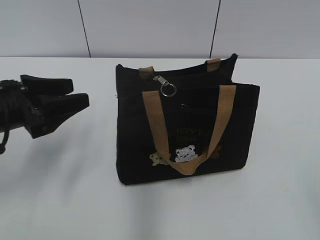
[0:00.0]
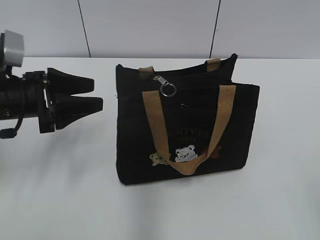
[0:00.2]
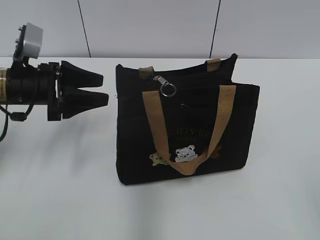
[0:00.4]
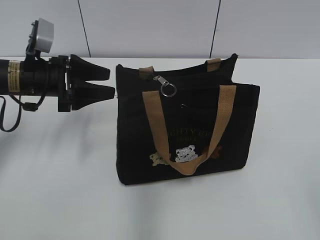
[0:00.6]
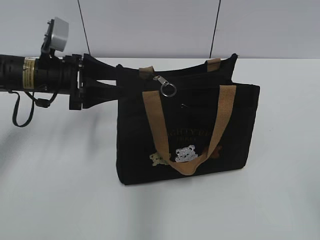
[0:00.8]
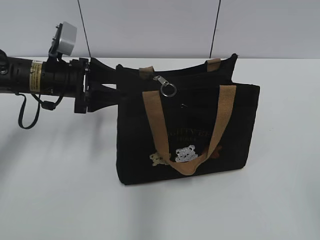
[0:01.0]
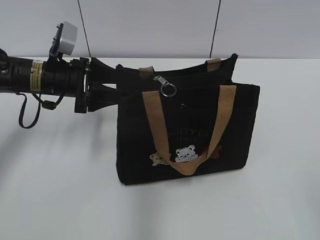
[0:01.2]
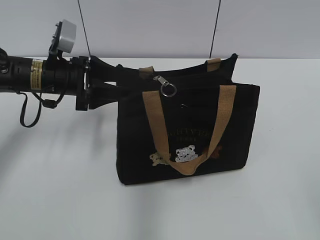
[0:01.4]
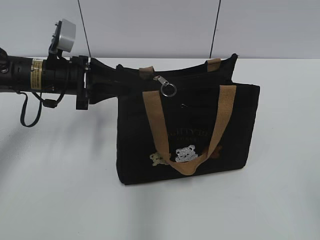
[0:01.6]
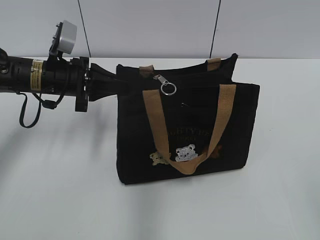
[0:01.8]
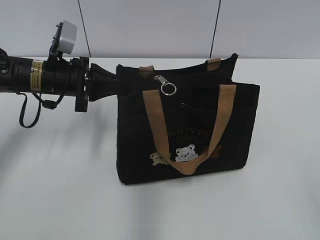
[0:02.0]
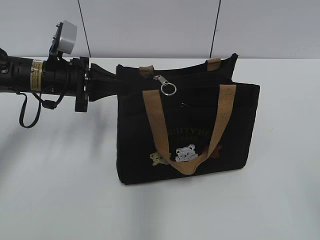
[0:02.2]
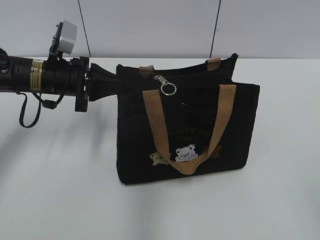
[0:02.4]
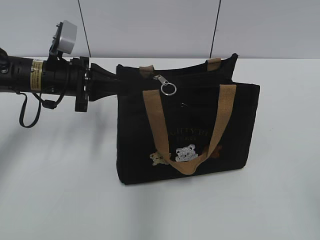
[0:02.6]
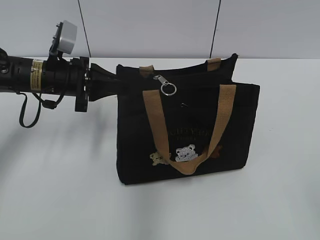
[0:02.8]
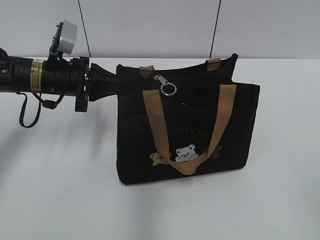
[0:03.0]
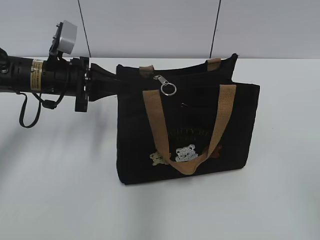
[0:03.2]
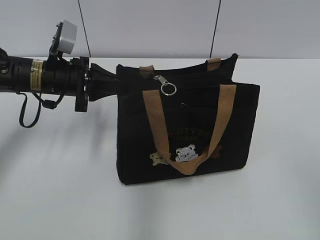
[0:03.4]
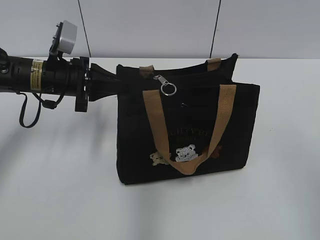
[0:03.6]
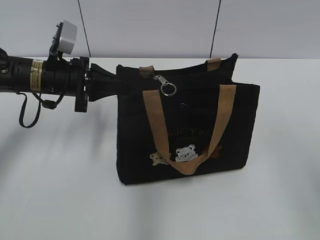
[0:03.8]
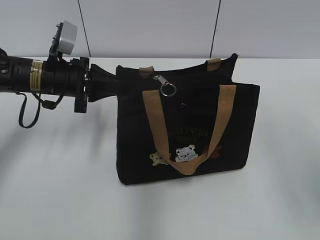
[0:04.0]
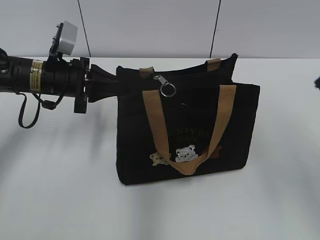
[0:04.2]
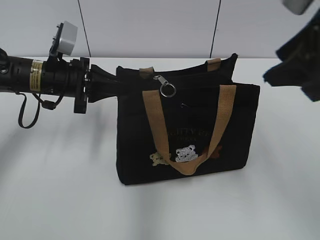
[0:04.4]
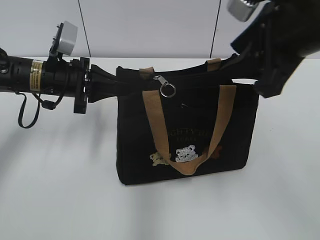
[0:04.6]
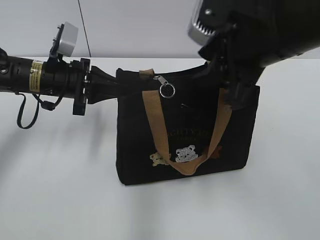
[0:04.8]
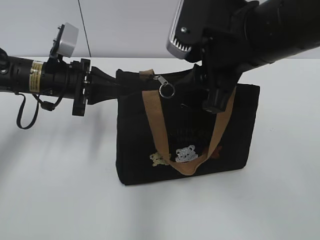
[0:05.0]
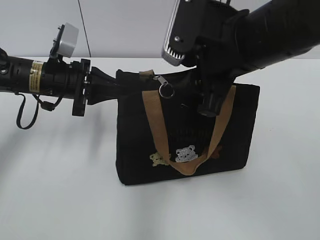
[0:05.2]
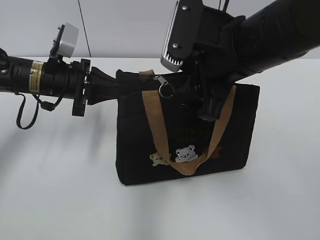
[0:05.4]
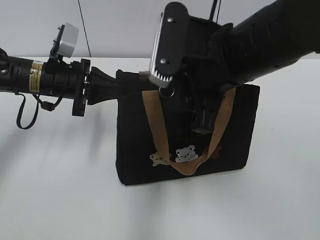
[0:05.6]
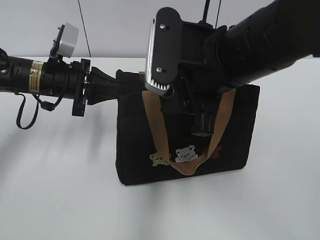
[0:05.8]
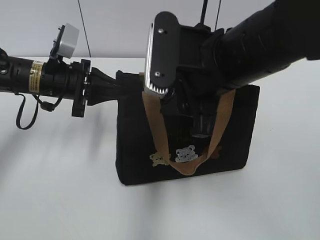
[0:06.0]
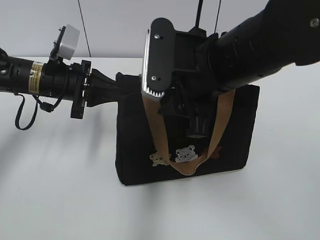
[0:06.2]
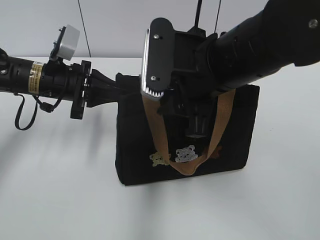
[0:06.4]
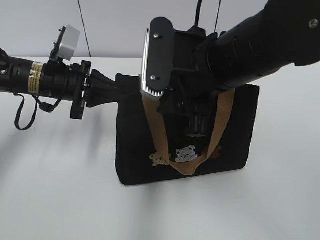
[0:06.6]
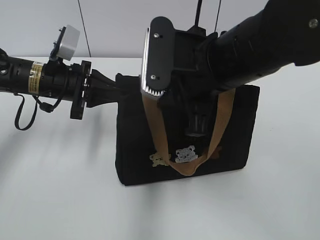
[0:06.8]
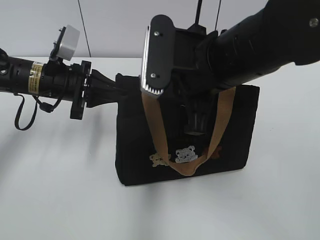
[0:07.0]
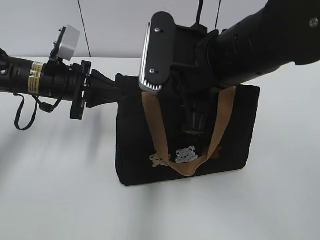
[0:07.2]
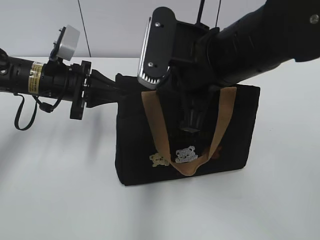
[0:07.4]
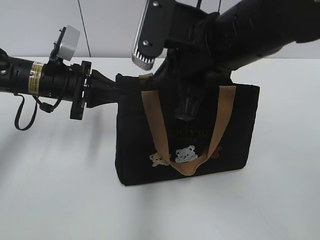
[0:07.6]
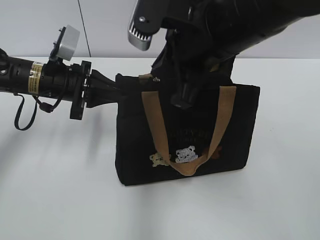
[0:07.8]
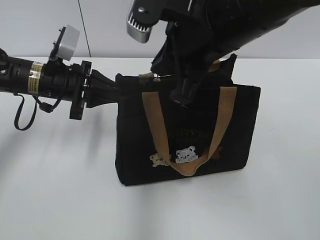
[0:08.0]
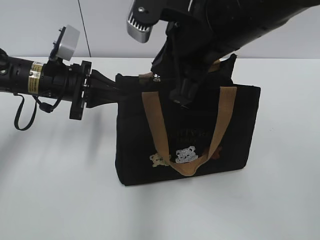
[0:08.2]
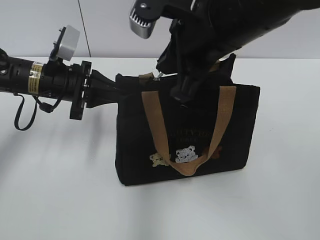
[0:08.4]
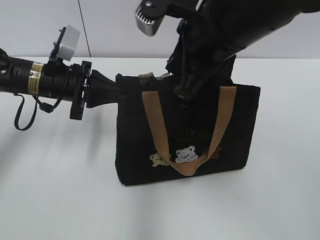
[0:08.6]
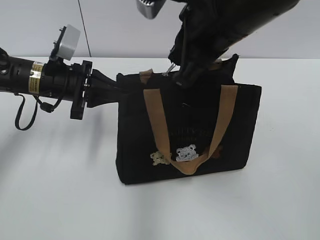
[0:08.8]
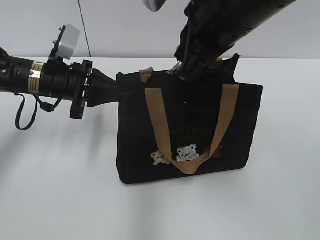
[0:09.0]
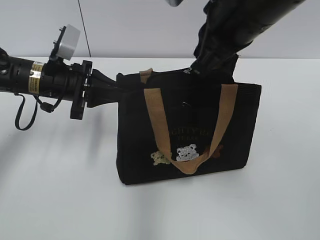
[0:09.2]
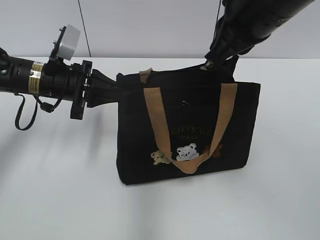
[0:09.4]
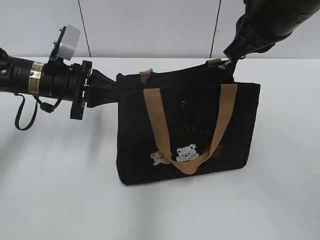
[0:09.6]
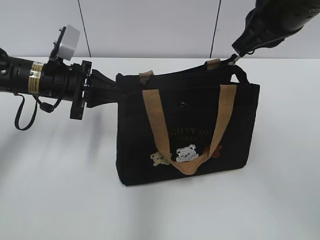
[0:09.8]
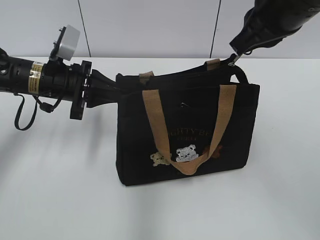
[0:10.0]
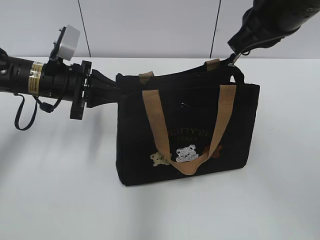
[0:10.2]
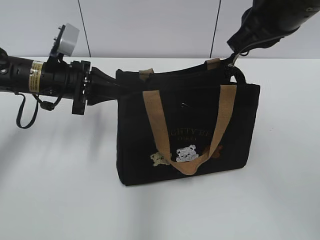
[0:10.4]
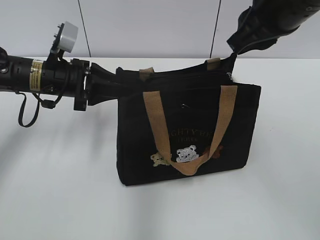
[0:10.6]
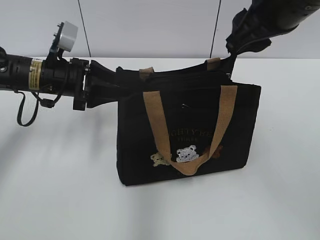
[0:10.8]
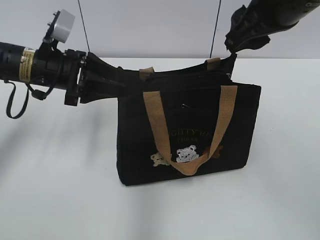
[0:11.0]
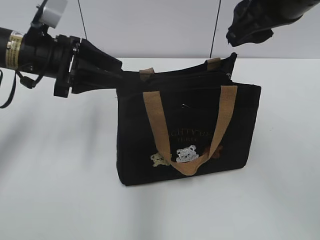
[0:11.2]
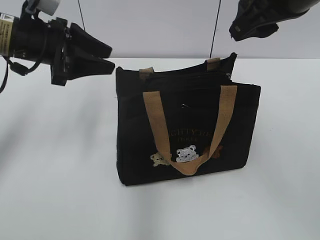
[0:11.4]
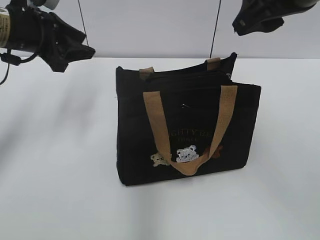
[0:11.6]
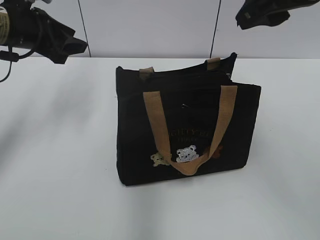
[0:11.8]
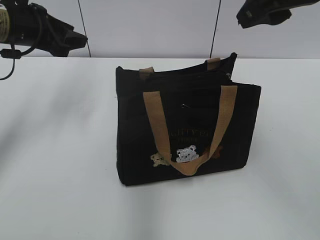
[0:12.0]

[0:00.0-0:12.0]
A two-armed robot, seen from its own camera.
Step, 0.0 to 10.4 s: Pull open the zipper with your right hand.
Step, 10.6 to 11.4 s: Hold the bag with your left hand.
0.0 to 1.6 s: The left gripper moves forward and to the right, about 15 cm, and closes.
1.6 to 3.0 s: The left gripper closes.
3.0 to 4.4 s: The right gripper goes some 20 cm forward.
4.4 to 6.0 s: The right gripper moves to the left and downward, roughly 15 cm.
6.0 to 7.6 s: The right gripper closes its fingers.
9.0 to 10.4 s: The right gripper heads to the right, covering some 5 cm.
10.4 to 12.0 s: The right gripper opens up. Meanwhile the left gripper travels upward by roughly 10 cm, and opens its fingers.

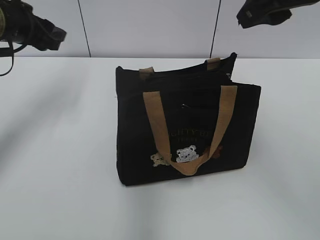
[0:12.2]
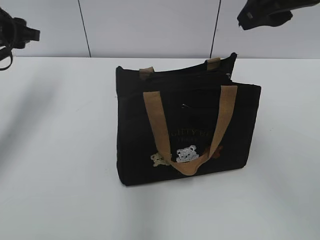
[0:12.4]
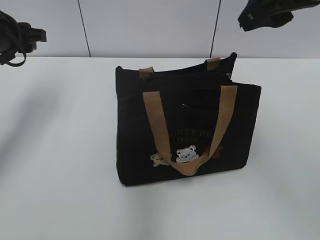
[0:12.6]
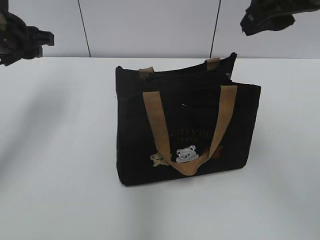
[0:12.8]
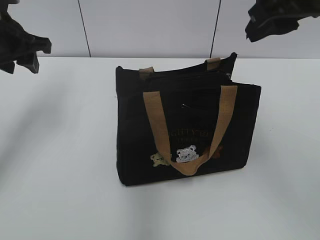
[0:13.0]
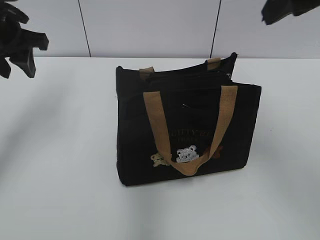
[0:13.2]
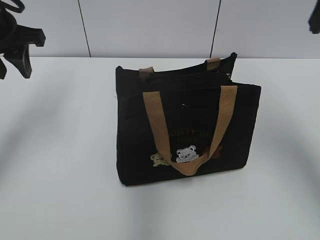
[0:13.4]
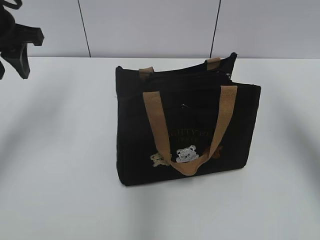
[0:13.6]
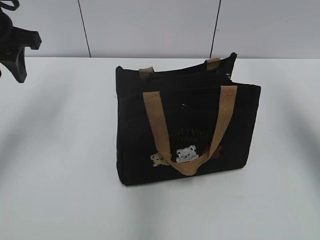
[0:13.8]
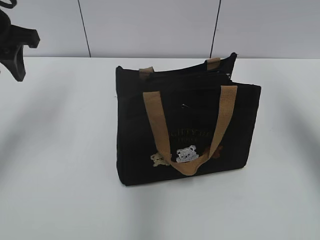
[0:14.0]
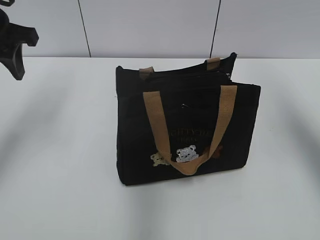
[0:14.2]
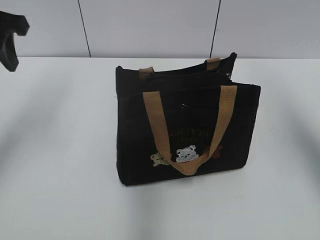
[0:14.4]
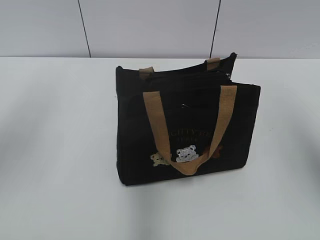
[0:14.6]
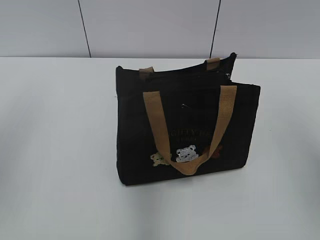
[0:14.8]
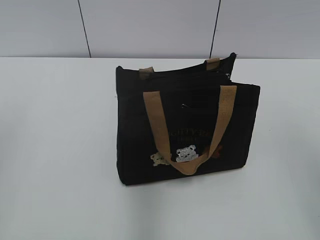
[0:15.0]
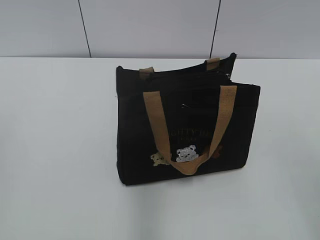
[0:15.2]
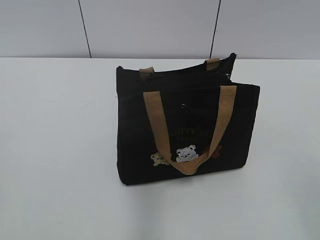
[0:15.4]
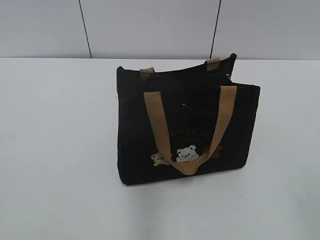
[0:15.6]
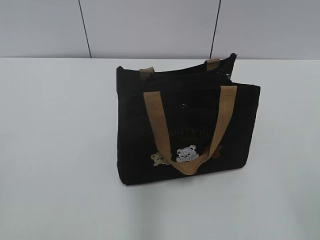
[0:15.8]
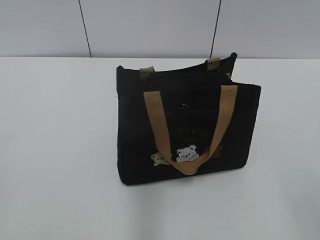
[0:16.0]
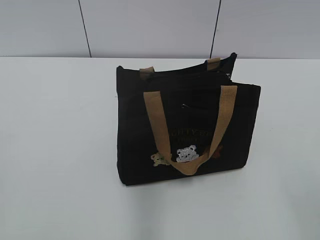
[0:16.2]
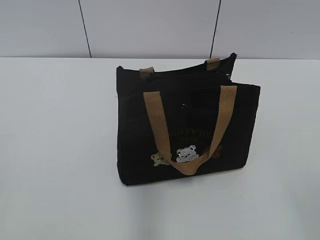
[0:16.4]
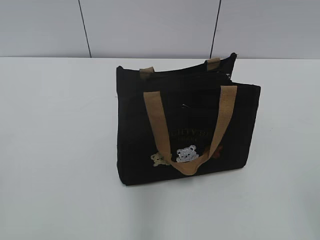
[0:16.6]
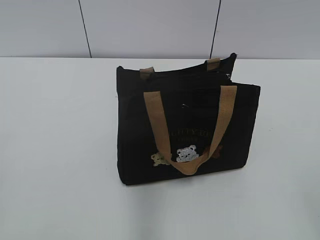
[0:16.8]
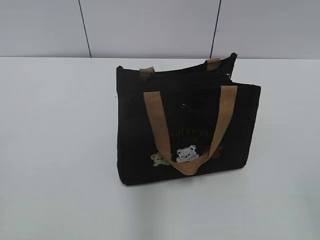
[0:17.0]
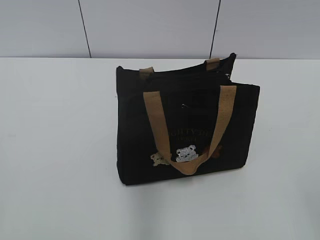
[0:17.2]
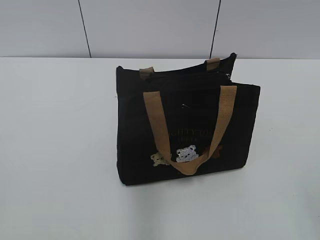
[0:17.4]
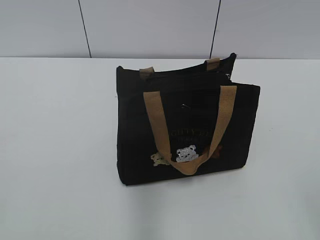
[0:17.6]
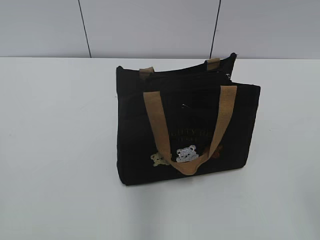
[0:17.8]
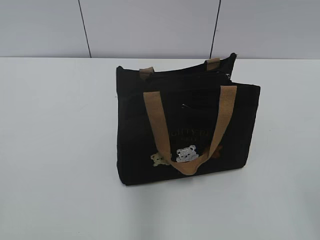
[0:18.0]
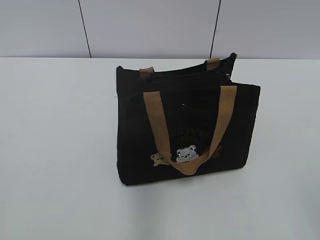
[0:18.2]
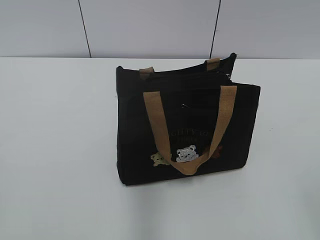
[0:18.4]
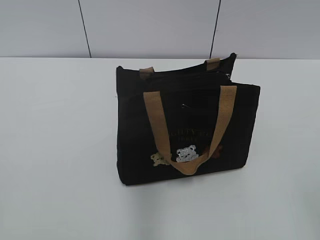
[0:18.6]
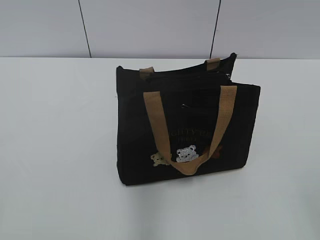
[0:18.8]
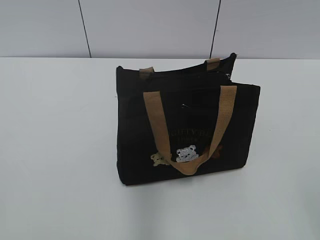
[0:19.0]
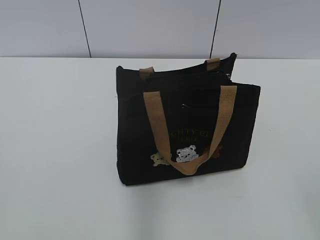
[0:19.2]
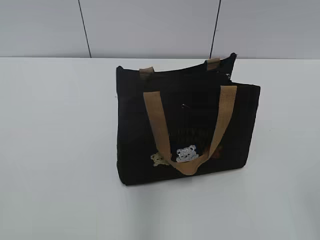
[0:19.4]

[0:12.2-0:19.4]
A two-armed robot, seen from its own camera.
12.2 to 13.6 s: The right gripper goes some 10 cm to the right, while the left gripper ends up about 5 cm from where it was.
13.6 to 15.0 s: The grippers both shift backward by roughly 20 cm.
18.0 to 19.4 s: The two grippers keep their place.

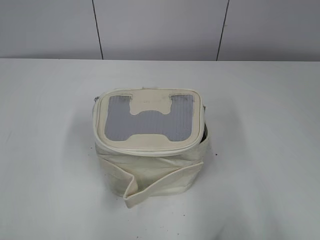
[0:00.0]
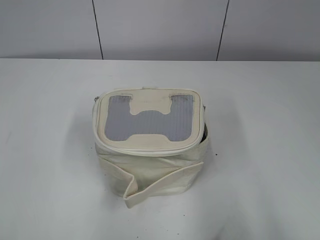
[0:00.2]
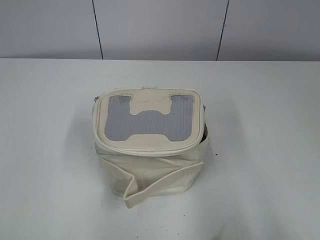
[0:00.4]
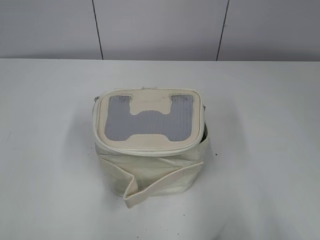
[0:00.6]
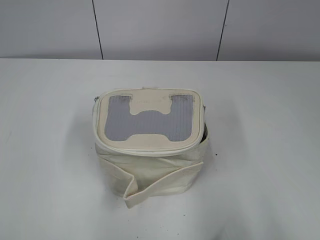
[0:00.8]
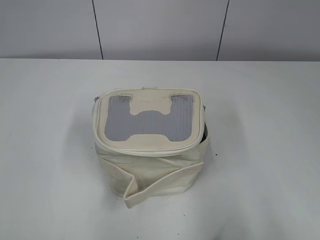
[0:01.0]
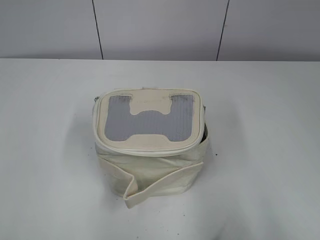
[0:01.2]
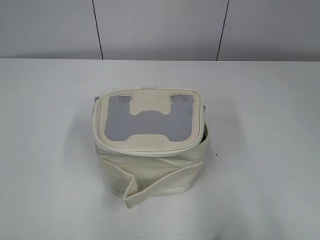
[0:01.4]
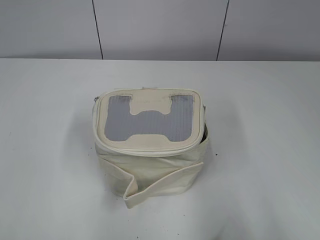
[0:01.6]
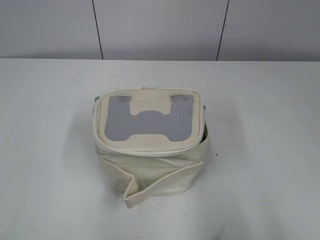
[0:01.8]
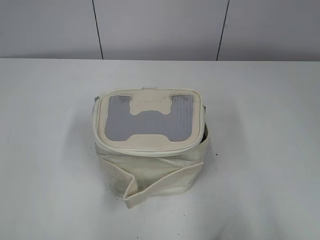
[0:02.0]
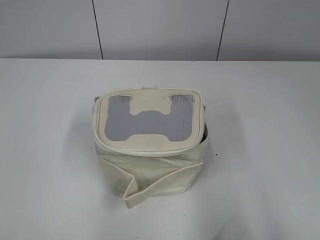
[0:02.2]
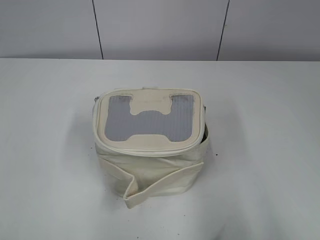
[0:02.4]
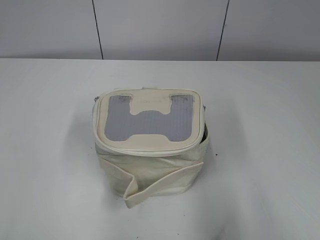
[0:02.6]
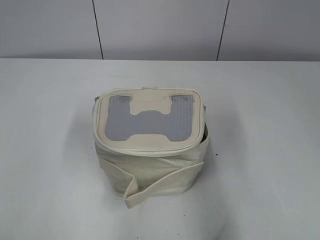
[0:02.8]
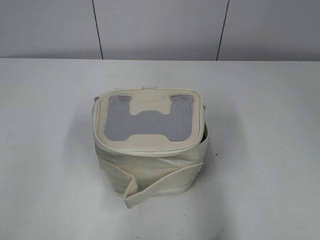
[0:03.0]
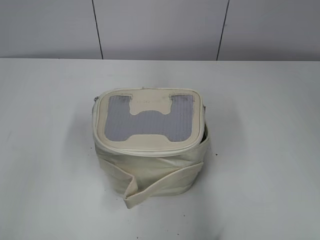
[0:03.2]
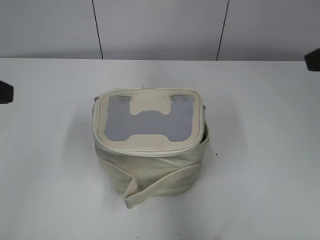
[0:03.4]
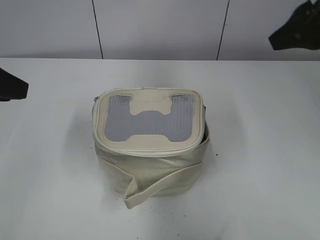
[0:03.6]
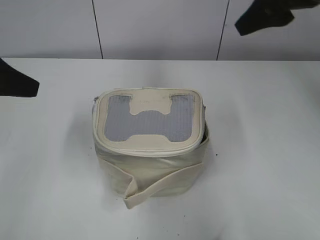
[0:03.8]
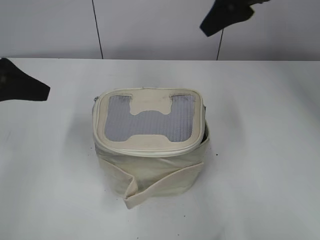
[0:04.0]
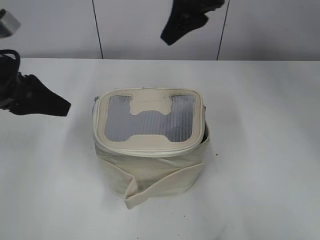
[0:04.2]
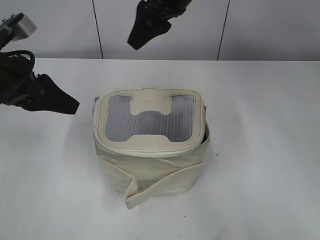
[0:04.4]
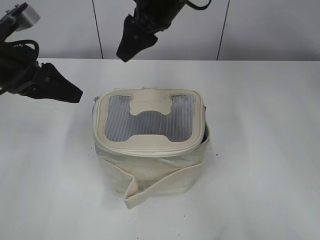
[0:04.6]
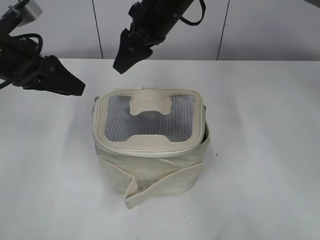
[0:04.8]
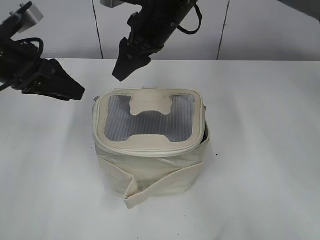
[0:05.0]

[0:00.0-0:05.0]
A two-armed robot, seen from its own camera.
1.6 to 3.4 s: The two grippers go some 20 cm forward.
3.4 to 5.0 s: The right gripper goes roughly 30 cm to the left and forward. The left gripper goes some 15 cm forward and downward.
